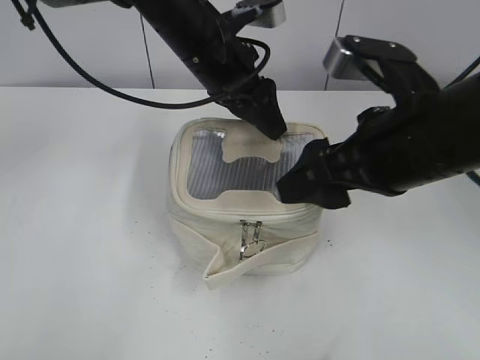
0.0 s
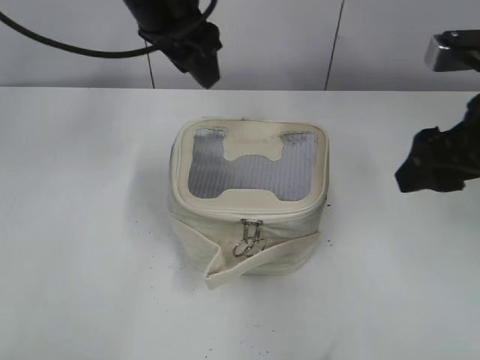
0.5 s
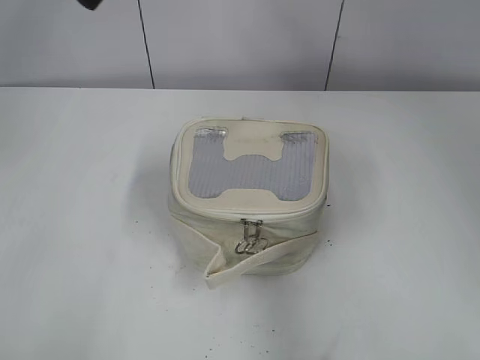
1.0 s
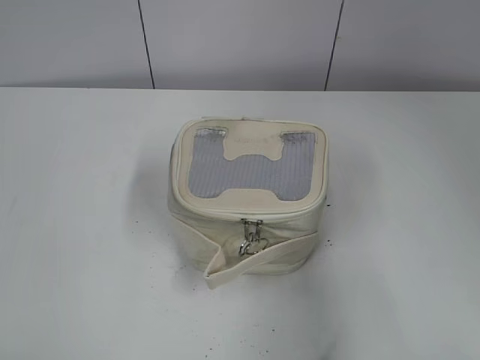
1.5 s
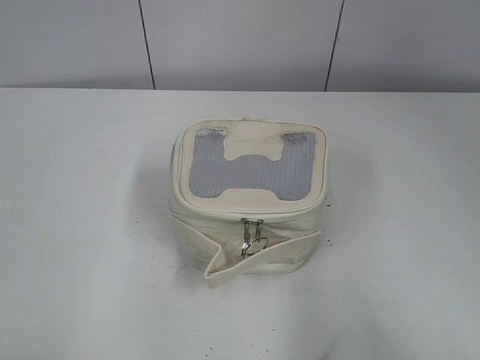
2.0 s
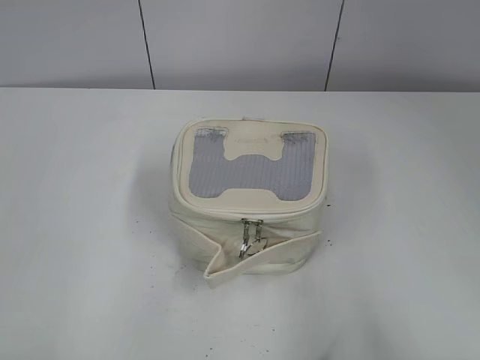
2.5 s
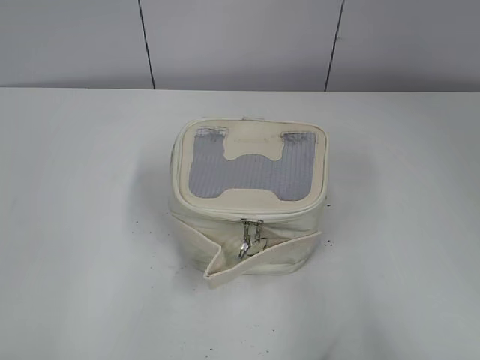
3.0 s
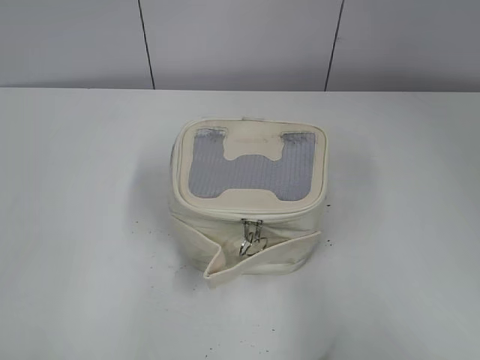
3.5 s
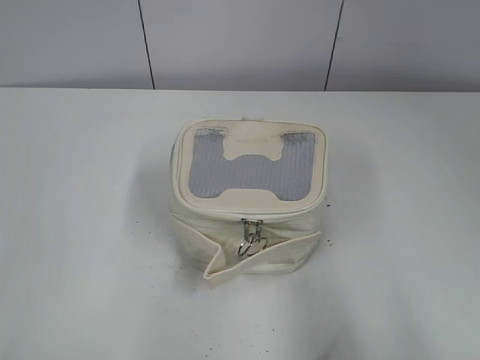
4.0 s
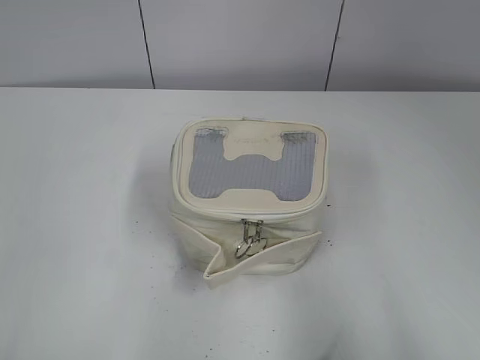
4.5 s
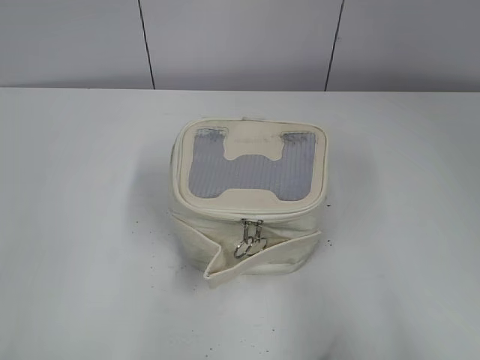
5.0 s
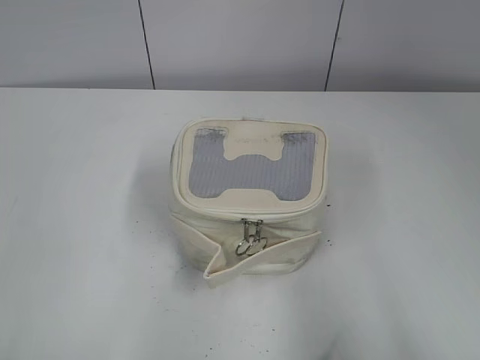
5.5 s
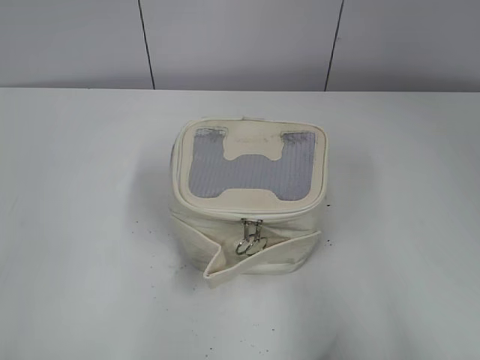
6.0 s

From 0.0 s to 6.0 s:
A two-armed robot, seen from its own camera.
From 0.0 s to 2.0 s: The right gripper is displaced backward and to the right by about 25 cm. The left gripper is displaced backward and to the left by about 40 cm.

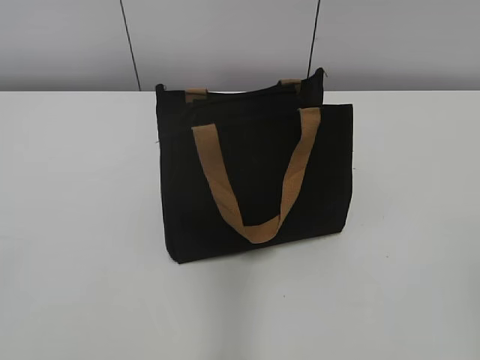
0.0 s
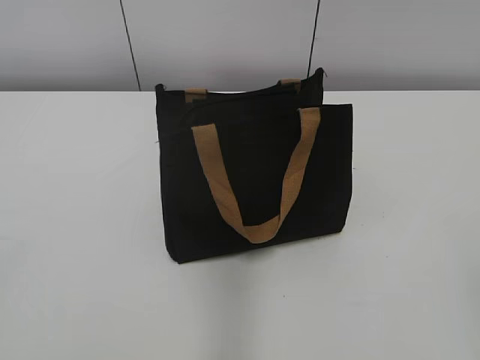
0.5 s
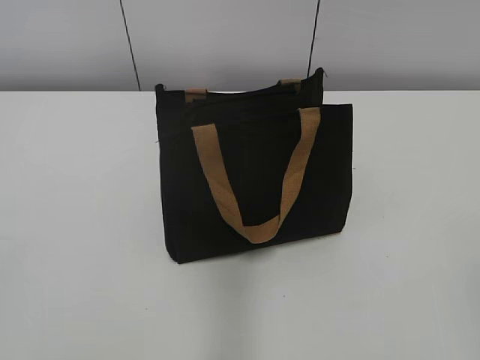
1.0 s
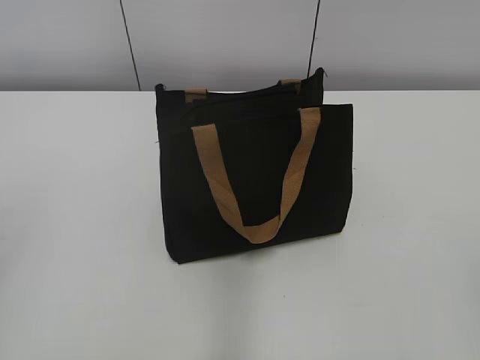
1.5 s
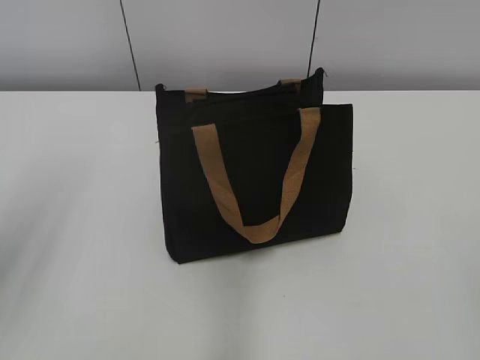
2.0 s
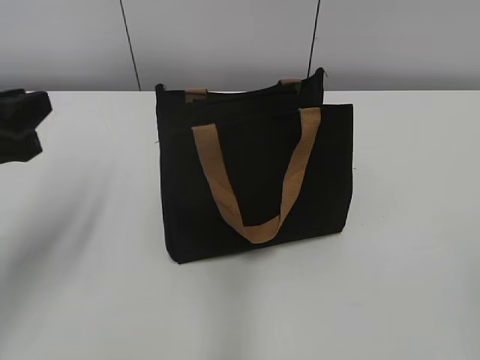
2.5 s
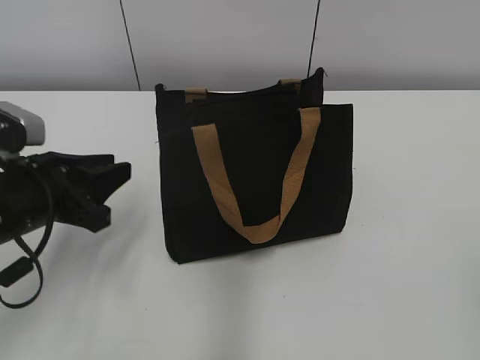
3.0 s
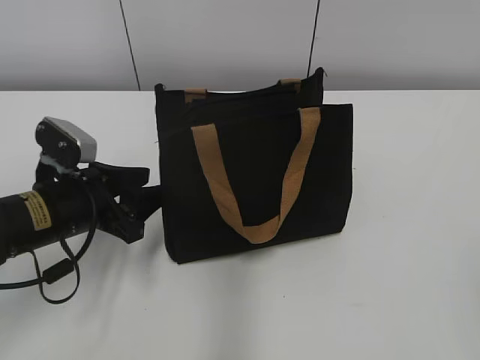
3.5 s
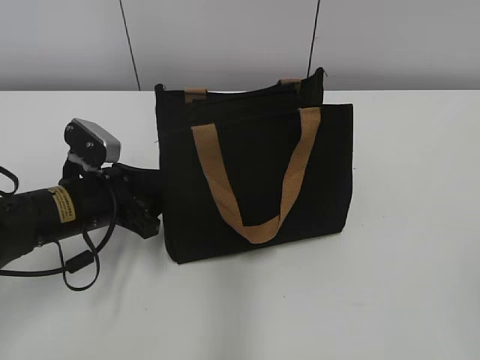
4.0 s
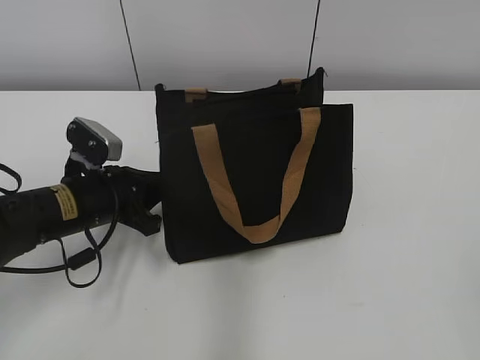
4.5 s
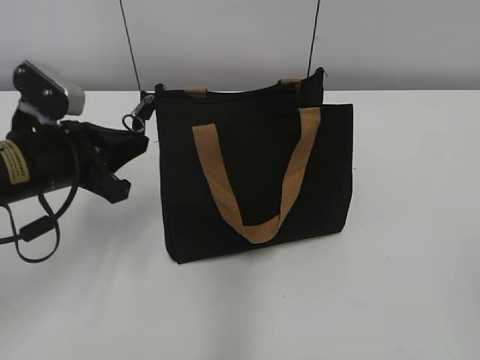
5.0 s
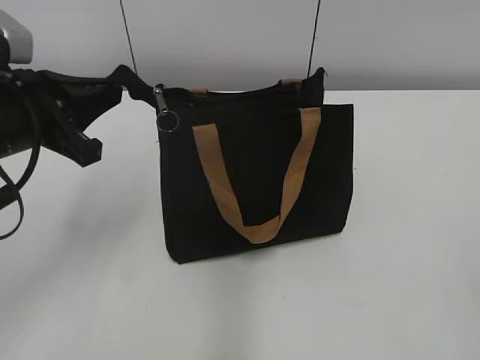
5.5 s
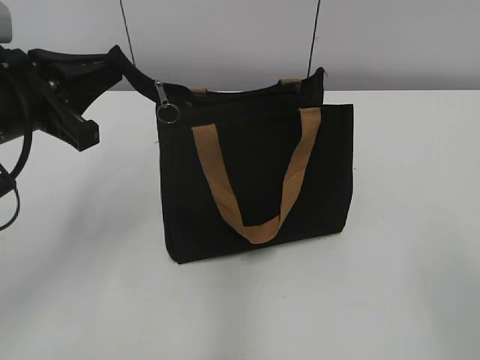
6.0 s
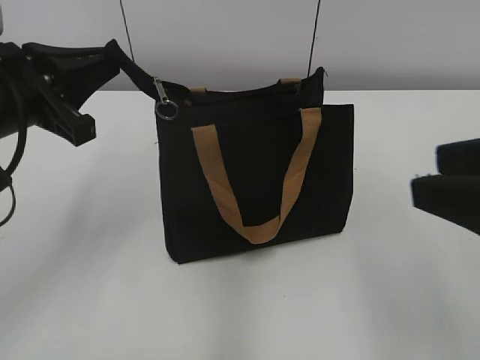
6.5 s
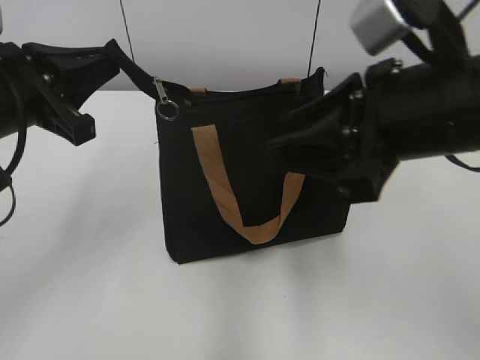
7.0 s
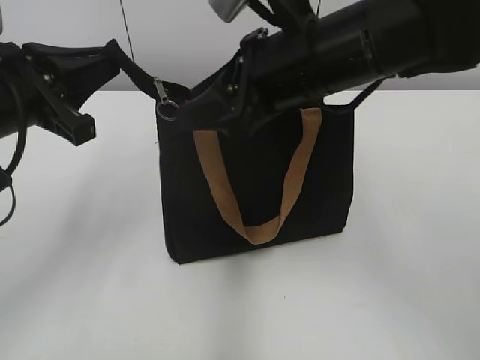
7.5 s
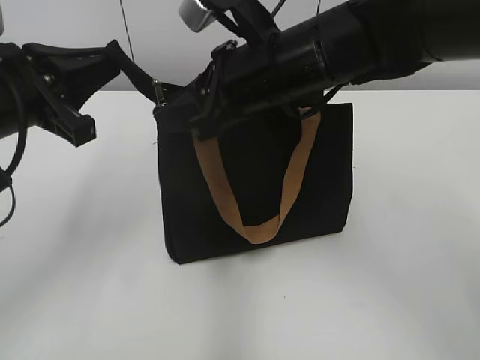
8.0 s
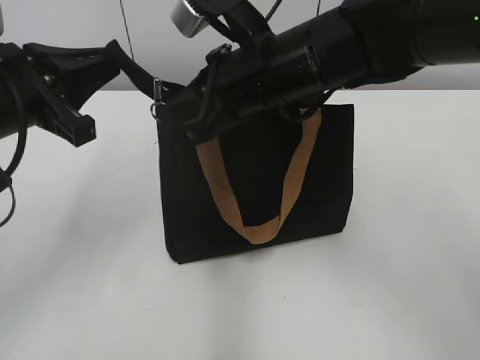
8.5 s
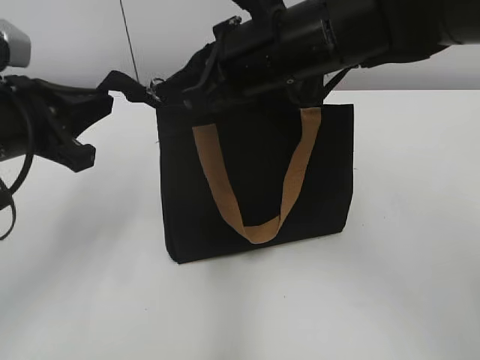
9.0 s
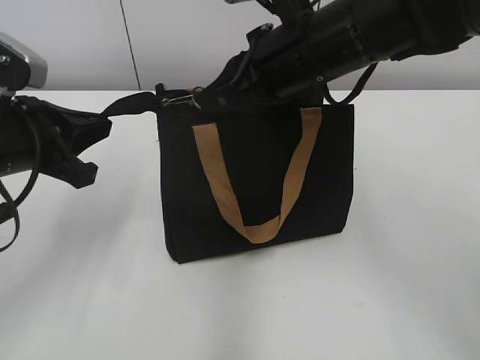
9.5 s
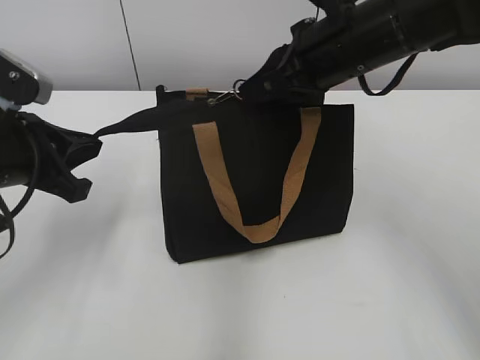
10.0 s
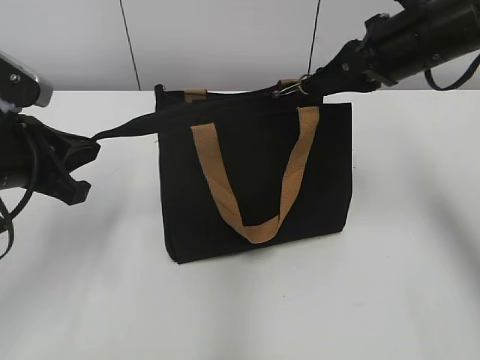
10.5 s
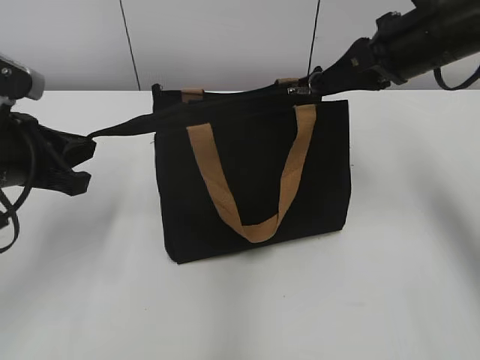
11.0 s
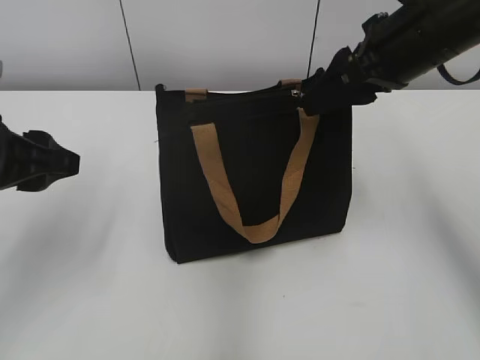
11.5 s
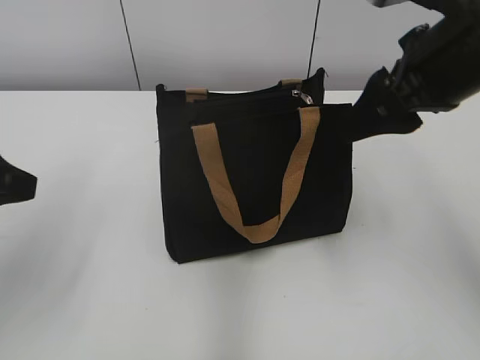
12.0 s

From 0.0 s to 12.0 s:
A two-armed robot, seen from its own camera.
Step, from 0.0 s to 11.0 s: Zip up the bag with your right hand.
From 2.0 s to 4.0 s: The left gripper is displaced downward, forward and to the right by some 30 cm.
From 4.0 s to 6.0 s: The left gripper heads upward, covering about 15 cm, and closes its fingers.
From 6.0 s to 8.0 s: The right gripper moves forward and to the left, approximately 40 cm.
From 8.0 s to 10.0 s: The right gripper travels to the right by approximately 5 cm, and closes its fingers.
From 10.0 s to 12.0 s: The right gripper goes roughly 5 cm to the right, and opens up; the left gripper travels backward by some 5 cm, and opens its fingers.

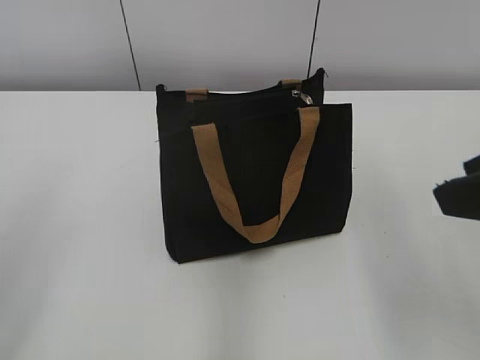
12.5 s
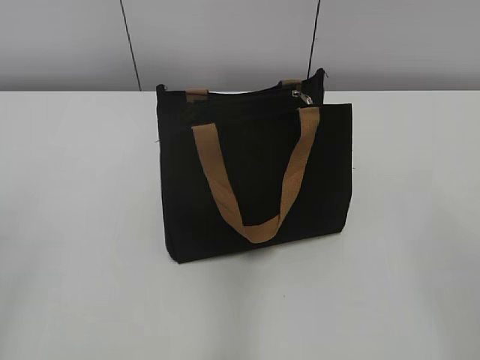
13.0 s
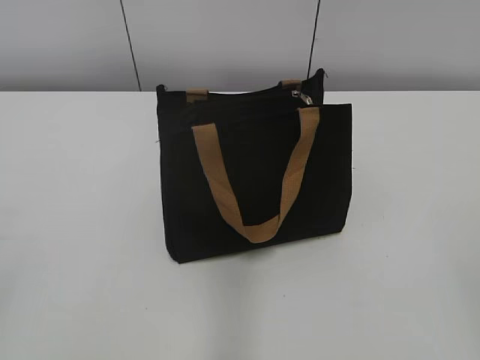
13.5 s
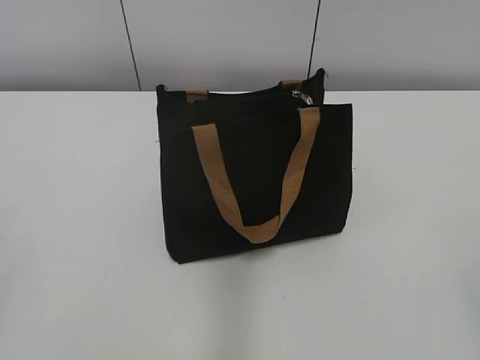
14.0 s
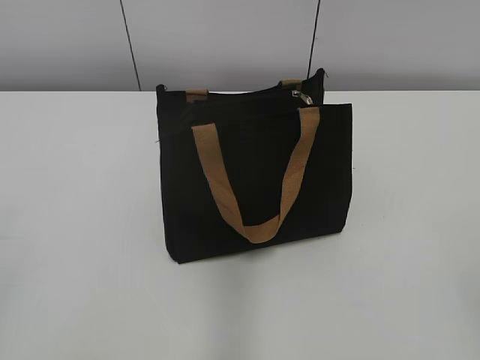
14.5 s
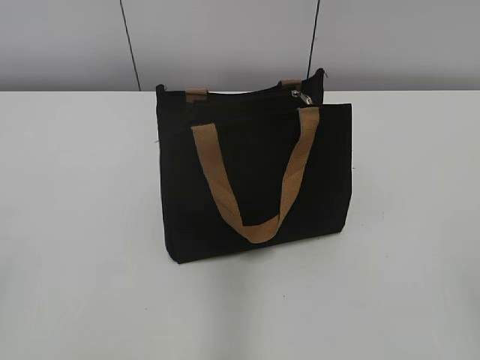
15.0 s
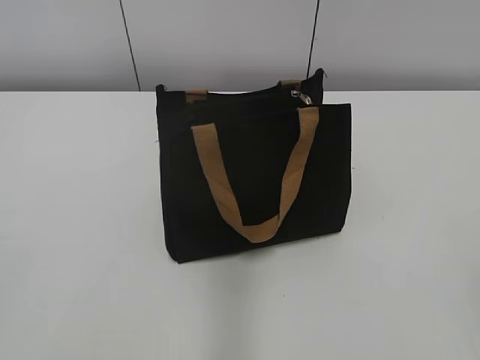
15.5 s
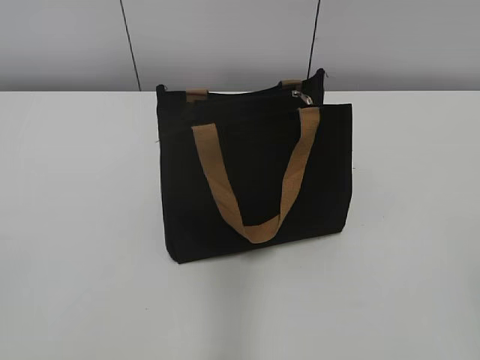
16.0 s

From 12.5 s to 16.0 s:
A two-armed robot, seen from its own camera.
From 12.5 s to 14.5 s: The right gripper moves backward and to the right, approximately 20 cm.
